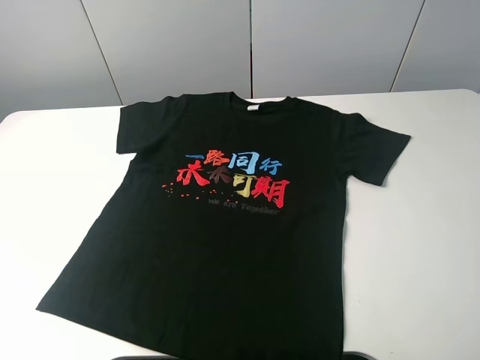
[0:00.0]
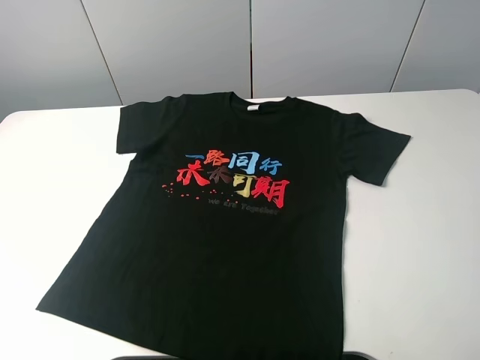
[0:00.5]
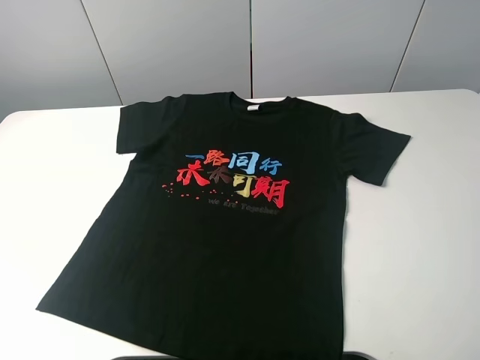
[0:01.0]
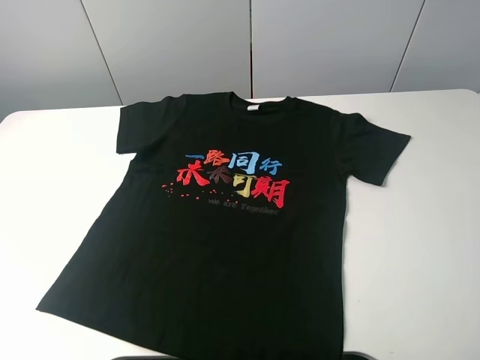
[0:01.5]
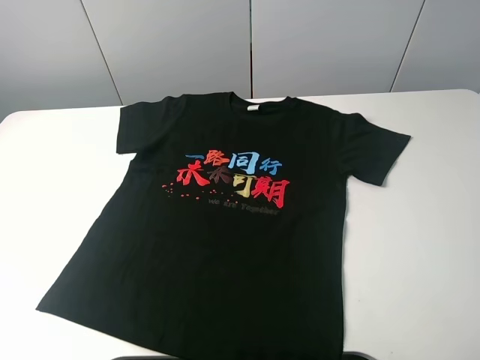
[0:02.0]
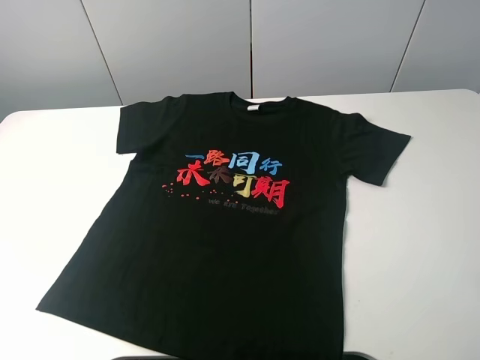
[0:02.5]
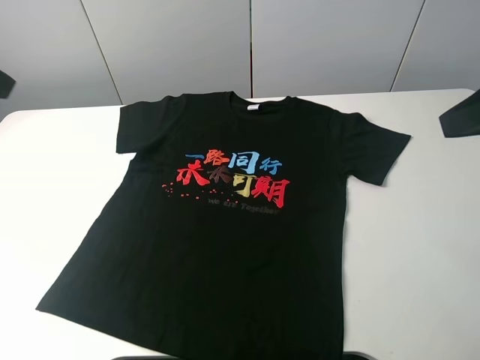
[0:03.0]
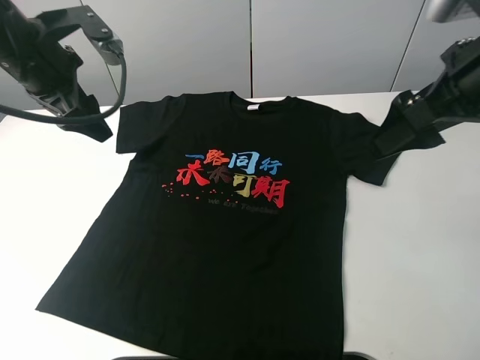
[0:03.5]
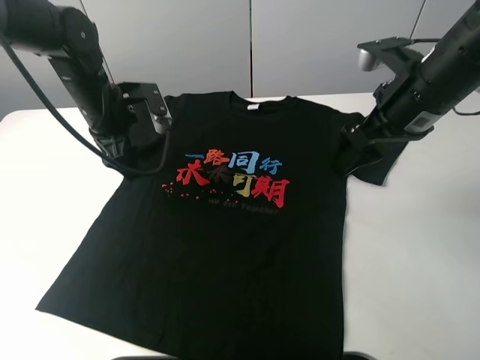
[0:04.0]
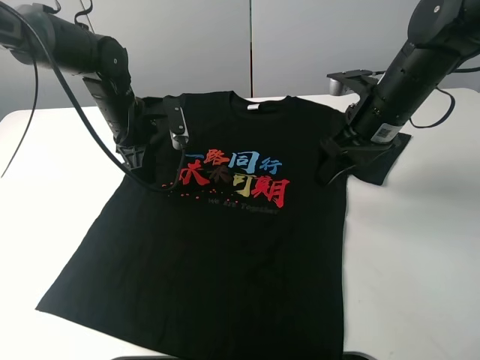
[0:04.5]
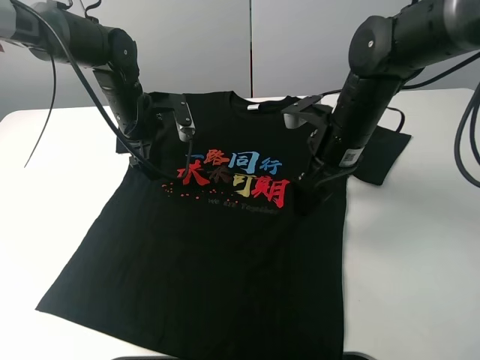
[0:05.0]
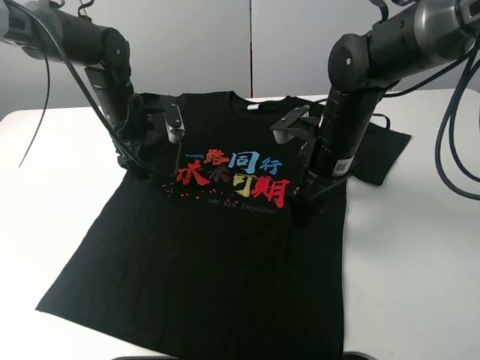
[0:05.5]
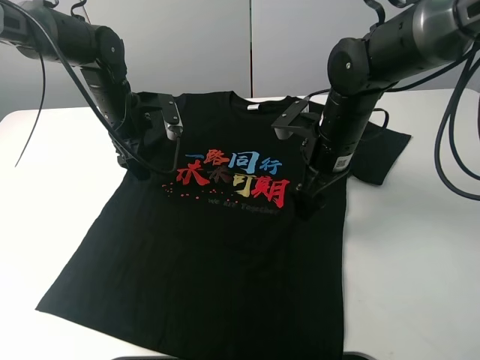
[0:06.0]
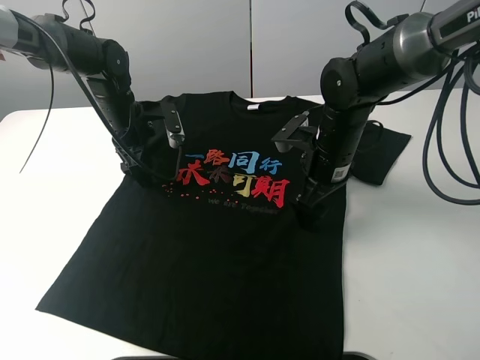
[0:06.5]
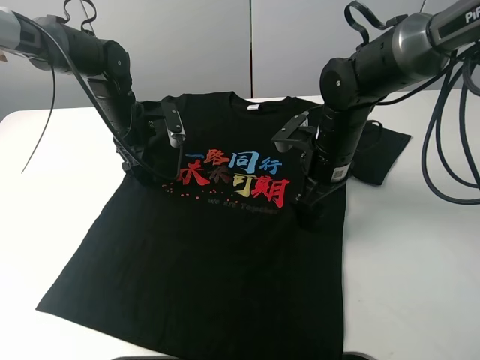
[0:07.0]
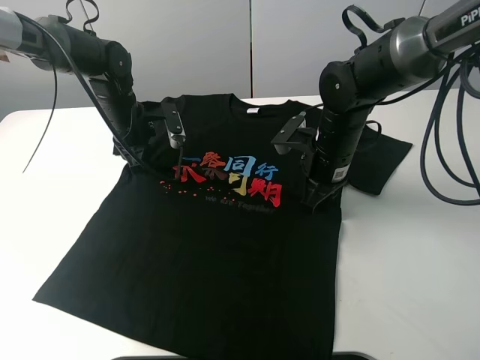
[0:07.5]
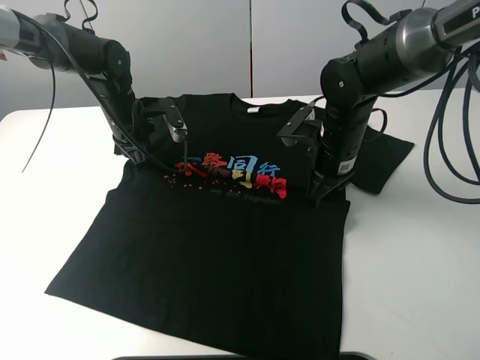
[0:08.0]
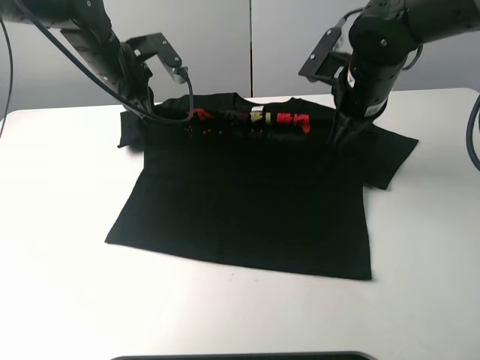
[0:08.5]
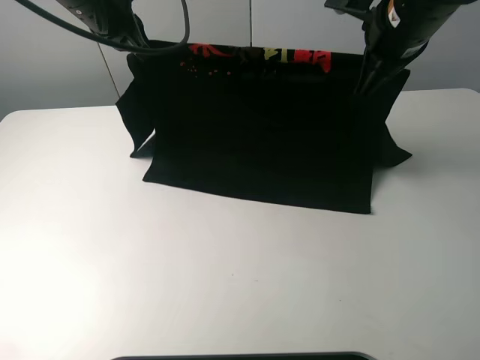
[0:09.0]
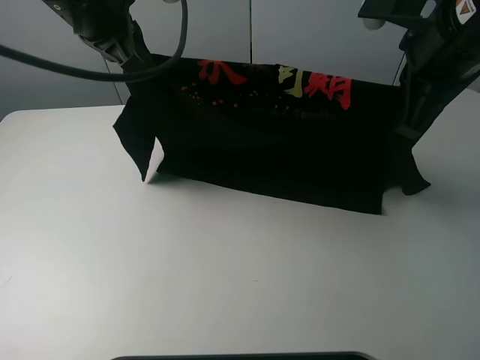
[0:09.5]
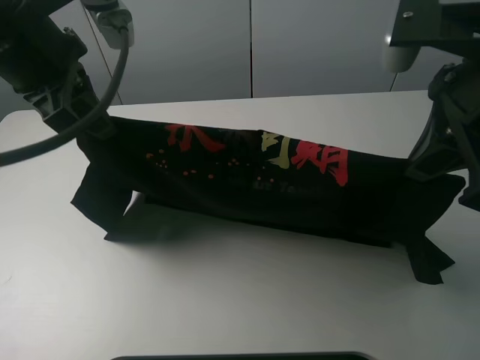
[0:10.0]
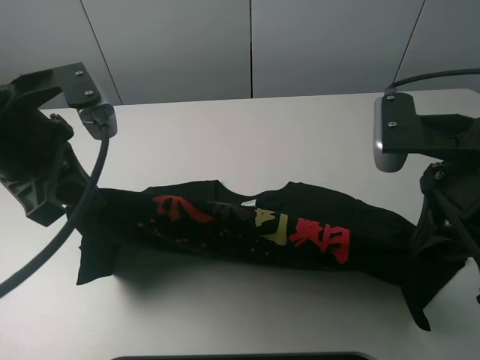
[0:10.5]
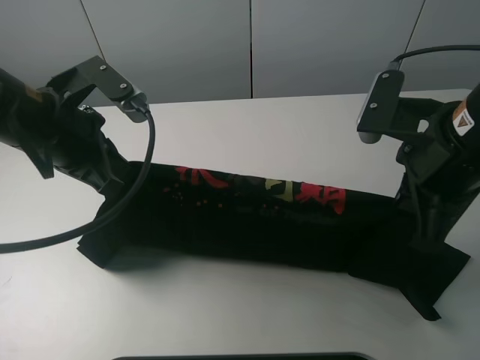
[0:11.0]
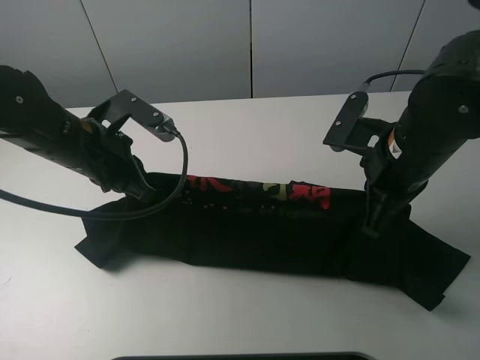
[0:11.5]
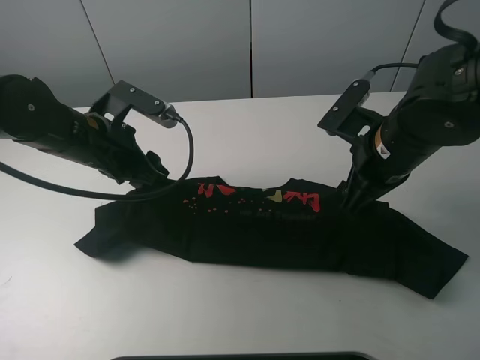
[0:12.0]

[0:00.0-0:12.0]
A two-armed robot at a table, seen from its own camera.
Task of the whole recording: fold the clothes on the table.
Step, 0.0 to 7.0 s: Lift the black T-shirt with the left gripper.
Step, 8.0 to 12.0 s: Fold the black T-shirt downward with the left gripper.
0.0 to 2.0 s: Both grippers stay about where they are.
2.0 to 4.0 s: The right gripper is displaced forward by about 30 cm; the left gripper shifts approximately 40 cm forward and to the right.
4.0 to 6.0 s: The right gripper moves downward and to the left, about 10 cm.
6.0 to 8.0 s: The right gripper closes up, while the left gripper closes its fingers.
8.0 to 10.0 s: The grippers both shift upward and backward by about 25 cm.
10.0 to 12.0 s: The left gripper heads downward, covering approximately 15 cm, and opens; the right gripper travels downward and forward by about 15 cm, and opens.

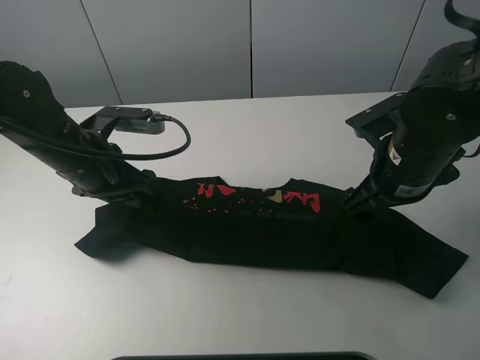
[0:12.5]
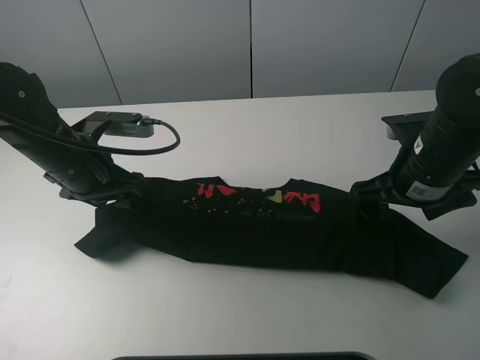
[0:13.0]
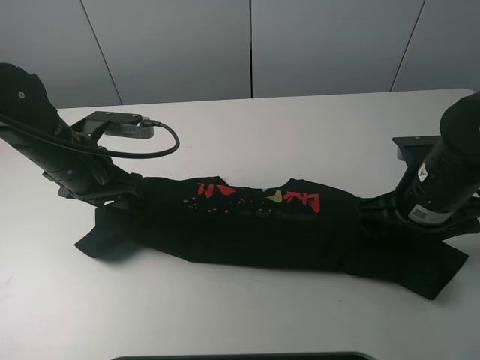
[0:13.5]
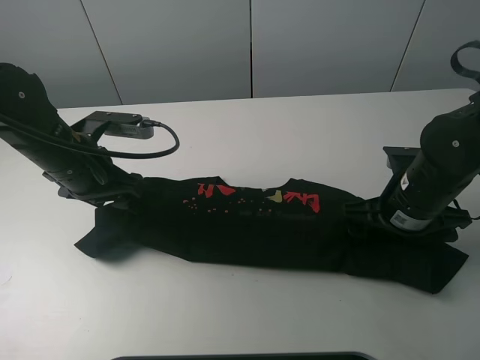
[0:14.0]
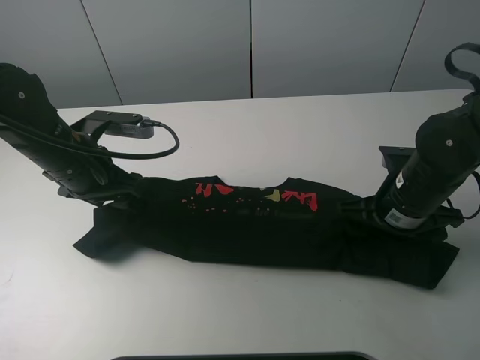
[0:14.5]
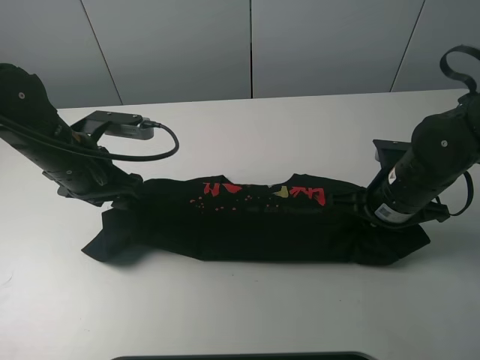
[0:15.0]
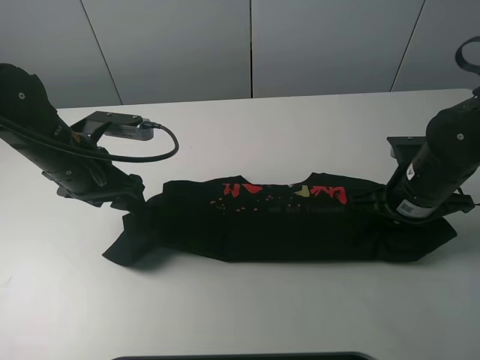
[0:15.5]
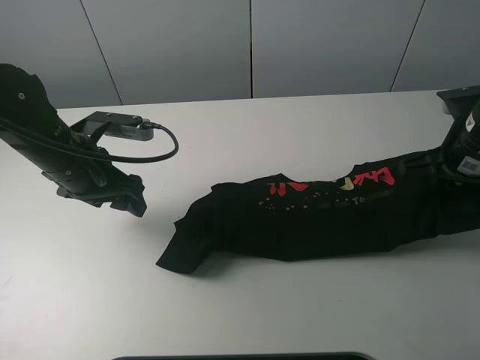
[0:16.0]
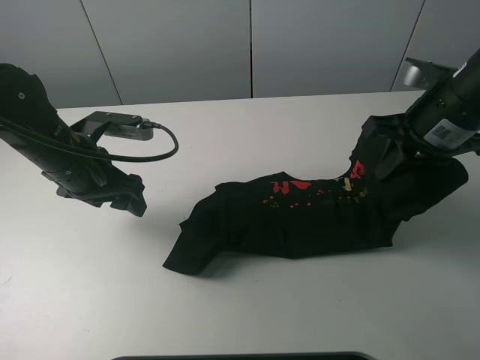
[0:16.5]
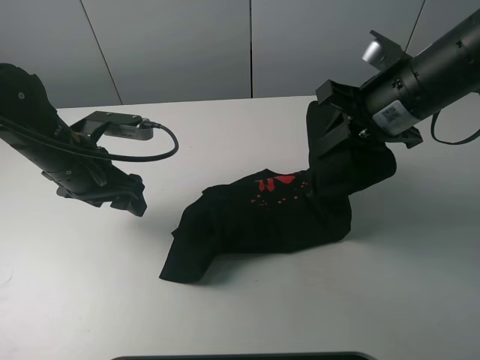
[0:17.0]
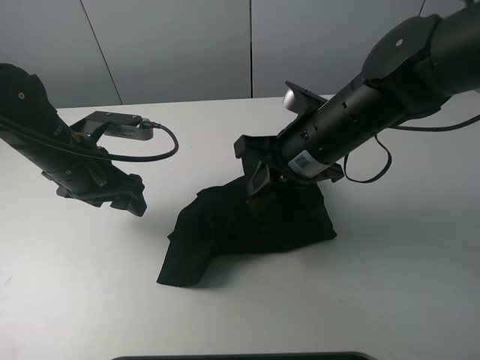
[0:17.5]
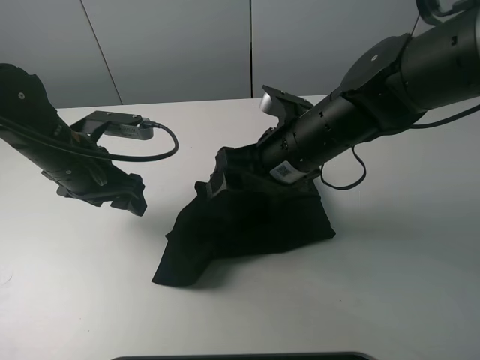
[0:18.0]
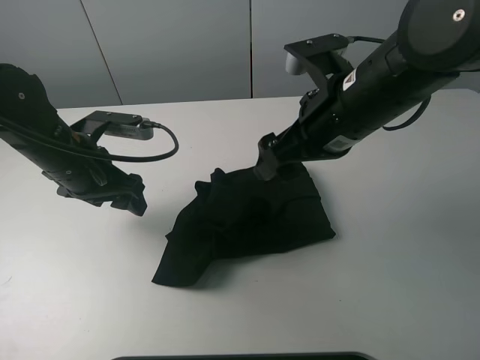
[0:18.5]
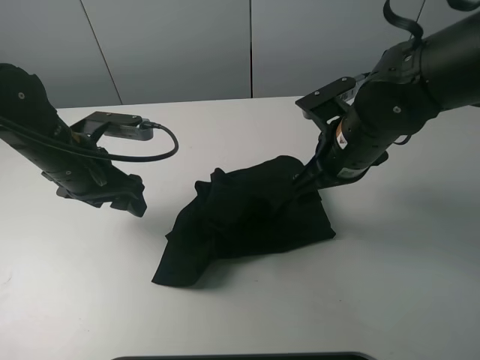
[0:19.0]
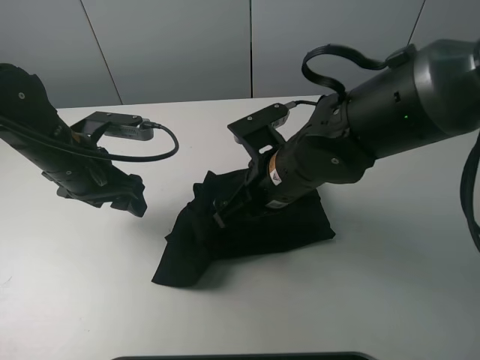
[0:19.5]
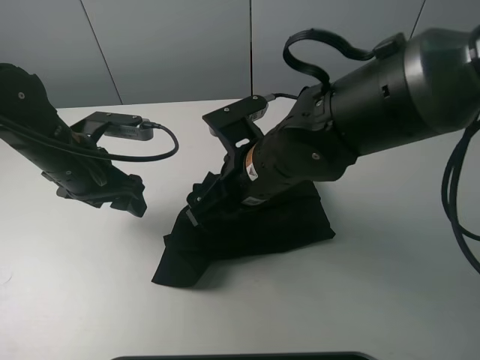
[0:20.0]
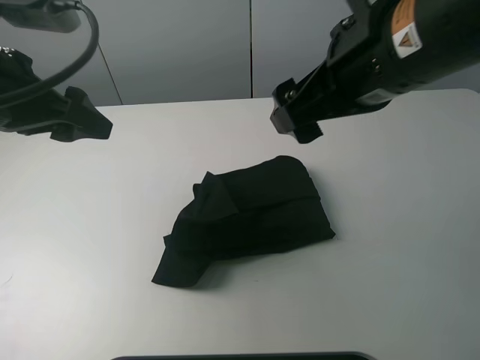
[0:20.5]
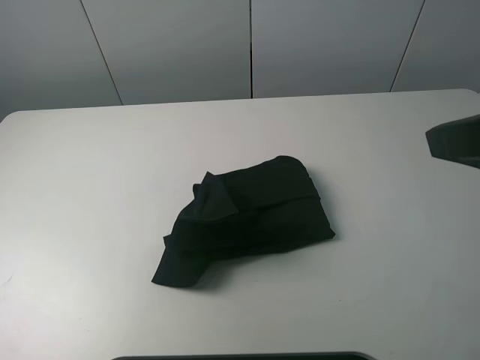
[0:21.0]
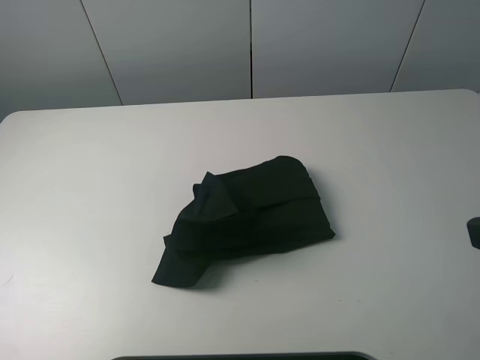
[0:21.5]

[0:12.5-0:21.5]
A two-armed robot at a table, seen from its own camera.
Task of the whole recording: fold the clothes on the table.
Step, 12.5 to 14.5 s: Grasp the black T-shirt with the right gripper.
Step, 15.0 to 20.0 s: Fold the black T-shirt from right to left with right gripper.
12.5 to 14.5 s: The right gripper is displaced downward by approximately 5 cm.
14.5 to 17.0 s: The right gripper goes some 15 cm upward, and closes.
17.0 to 19.5 s: The right gripper goes left and right, roughly 15 cm each way, reversing 2 times, and opens its fingers.
19.5 to 21.5 s: The left gripper heads backward, upward and to the left, covering approximately 35 cm. Meanwhile the right gripper goes approximately 35 cm to the right, backward and upward.

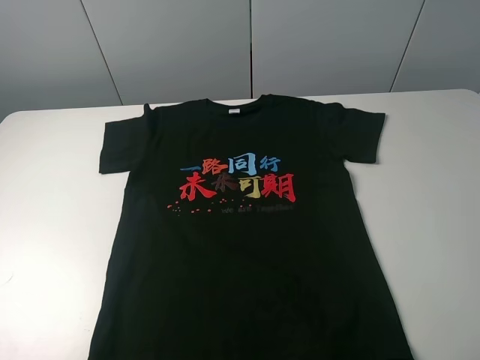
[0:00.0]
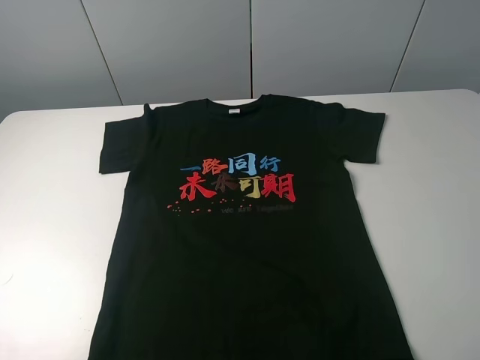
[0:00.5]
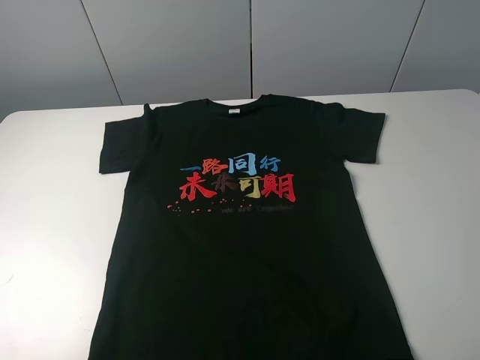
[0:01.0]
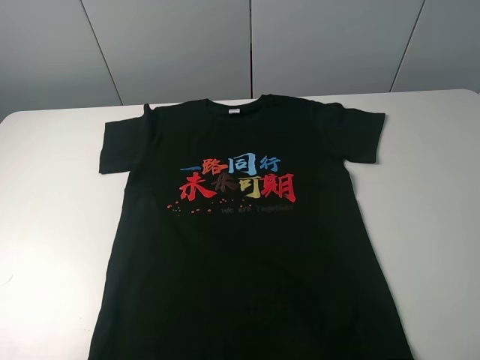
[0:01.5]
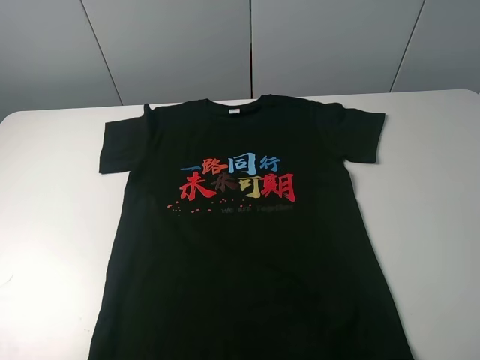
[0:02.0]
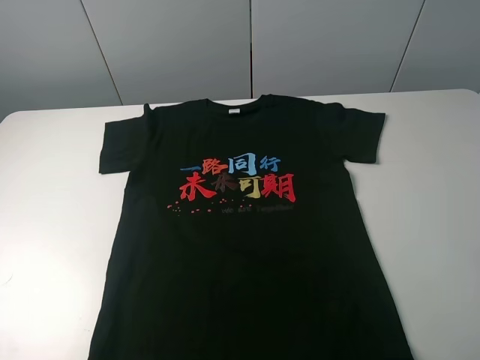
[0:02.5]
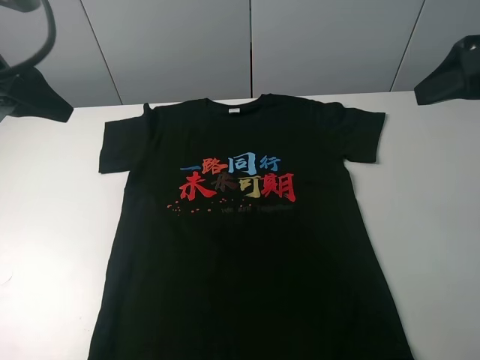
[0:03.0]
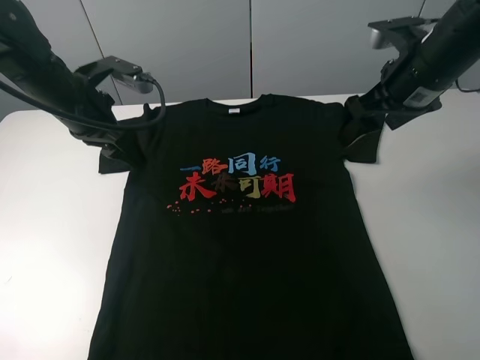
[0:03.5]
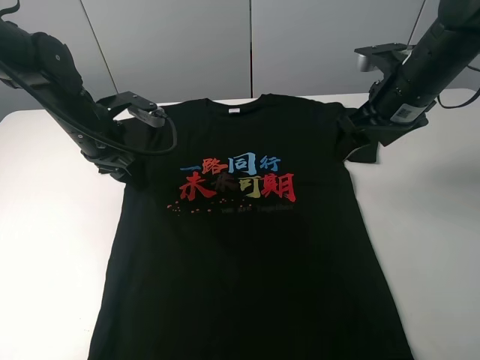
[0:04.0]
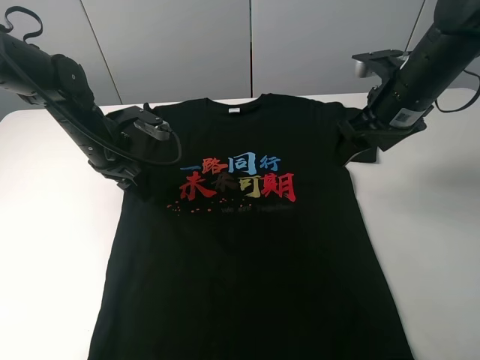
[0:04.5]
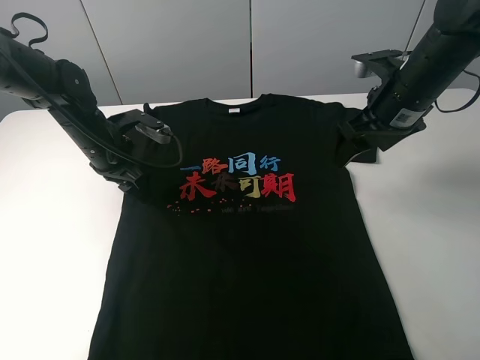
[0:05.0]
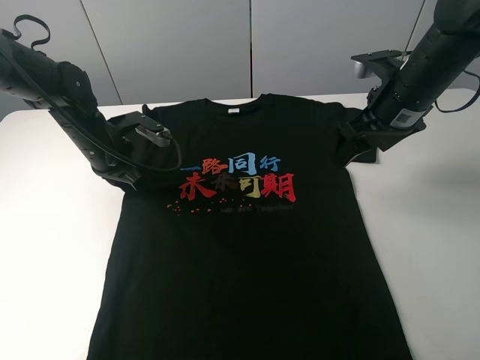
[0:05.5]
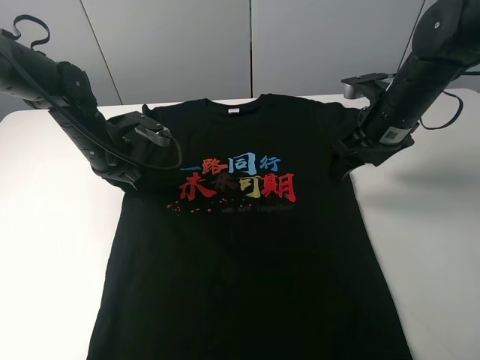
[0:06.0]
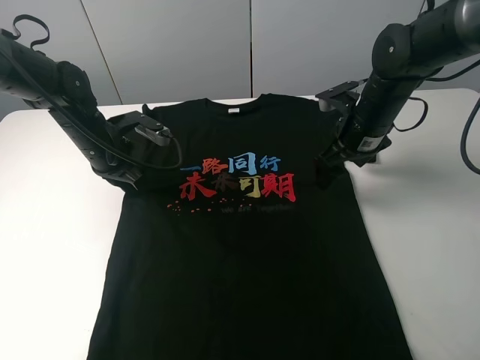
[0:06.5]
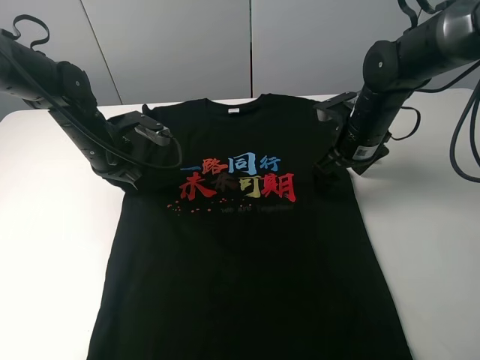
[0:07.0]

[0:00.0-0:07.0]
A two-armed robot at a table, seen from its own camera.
Task of the whole recording: fold the clothes on the table.
0.0 to 2.0 s: The two grippers keep their place.
2.0 to 3.5 s: The left gripper shifts roughly 35 cm forward and to the right. Meanwhile the right gripper travels forward by about 30 cm.
3.5 to 5.0 s: The left gripper shifts some 10 cm downward.
5.0 to 7.0 s: The right gripper goes some 10 cm downward. The left gripper closes its fingers.
